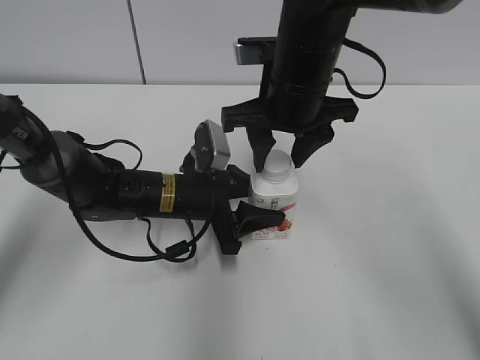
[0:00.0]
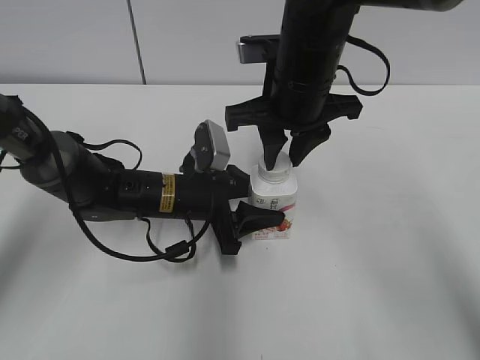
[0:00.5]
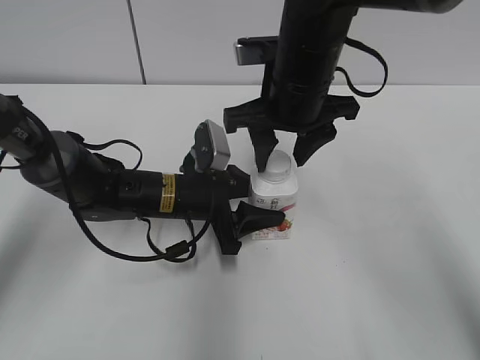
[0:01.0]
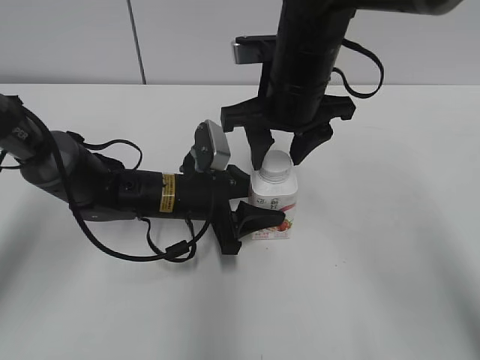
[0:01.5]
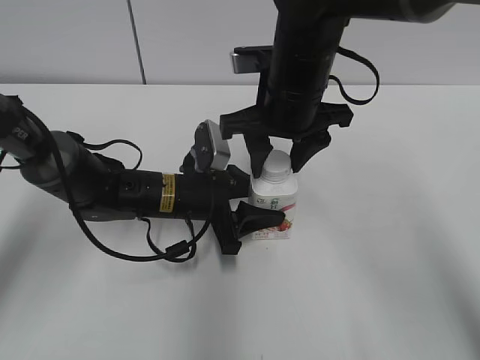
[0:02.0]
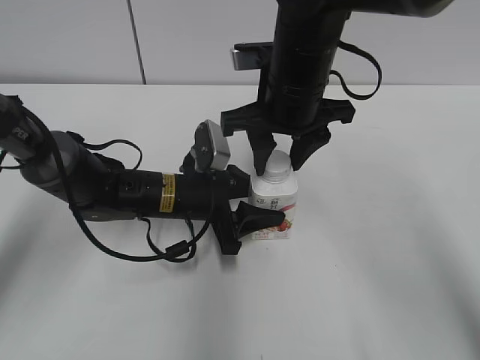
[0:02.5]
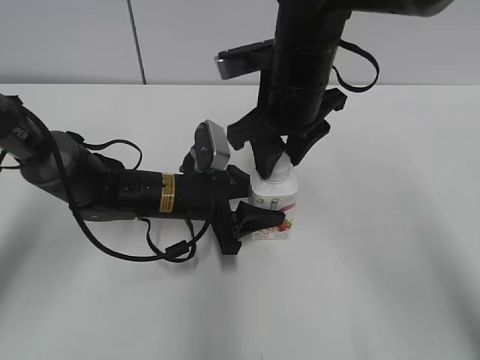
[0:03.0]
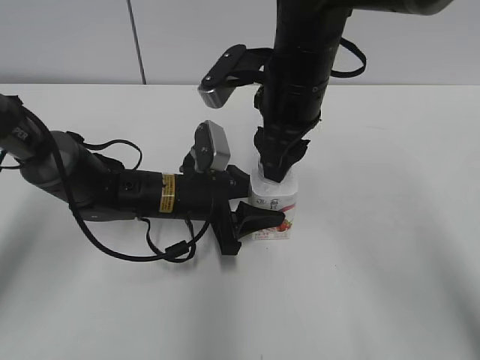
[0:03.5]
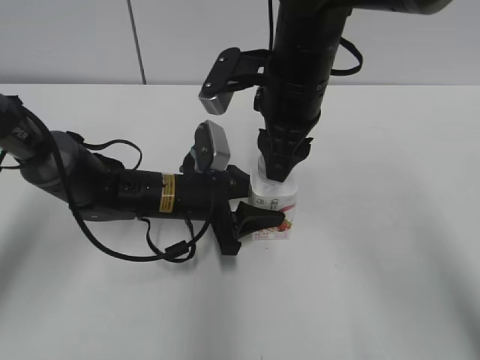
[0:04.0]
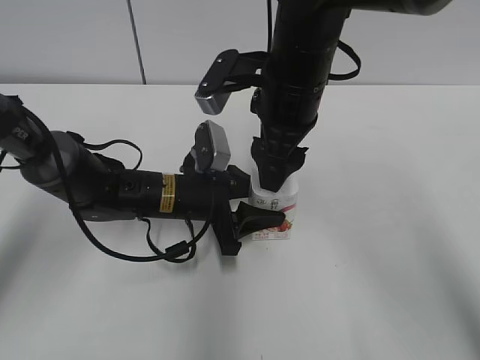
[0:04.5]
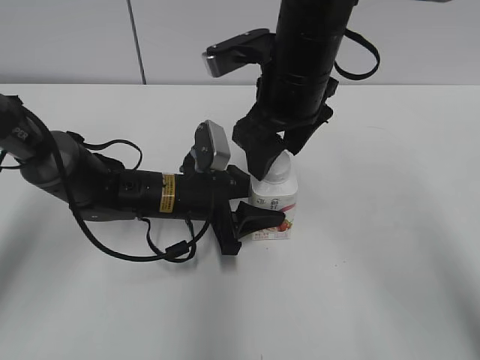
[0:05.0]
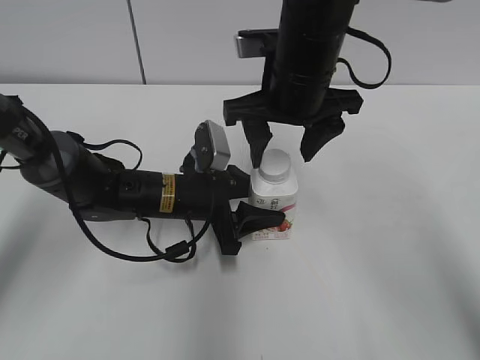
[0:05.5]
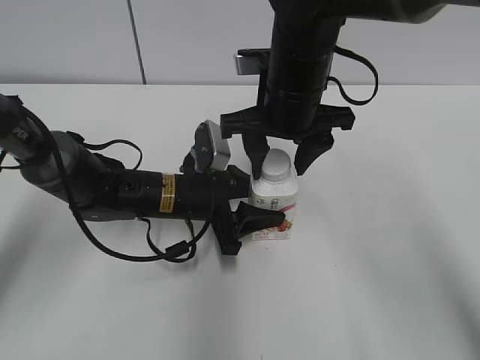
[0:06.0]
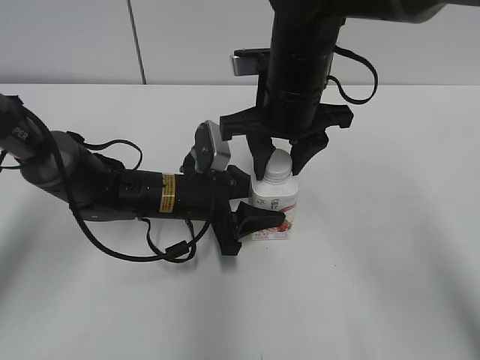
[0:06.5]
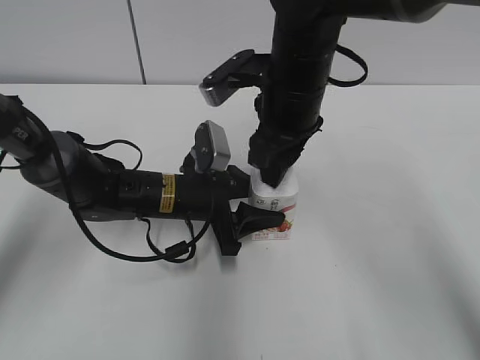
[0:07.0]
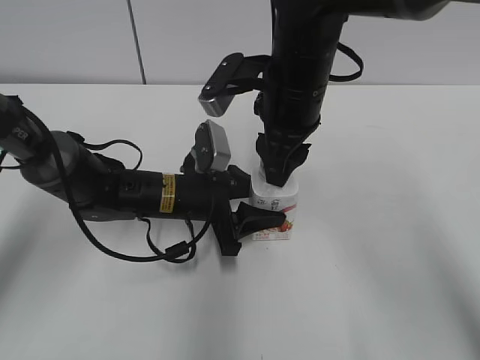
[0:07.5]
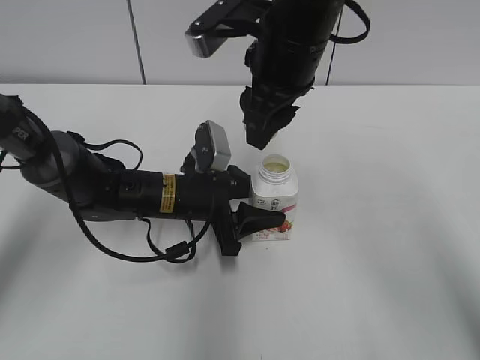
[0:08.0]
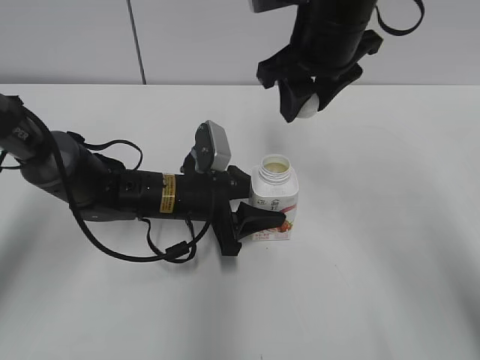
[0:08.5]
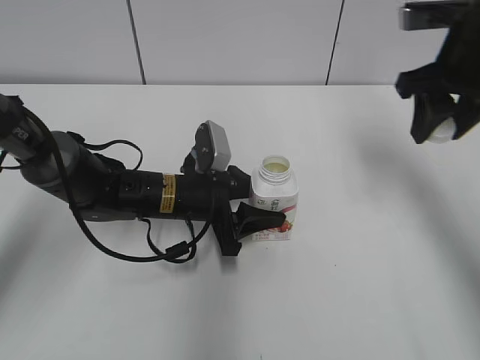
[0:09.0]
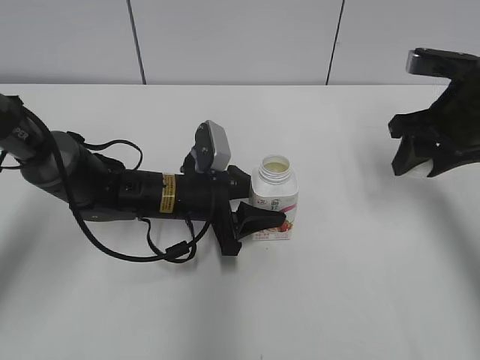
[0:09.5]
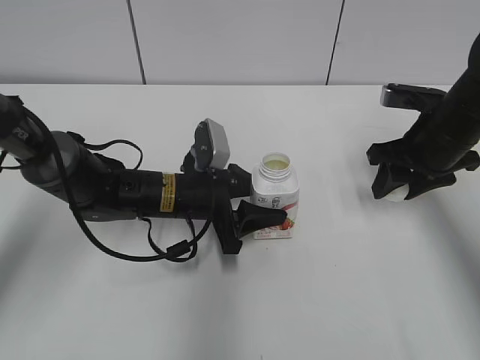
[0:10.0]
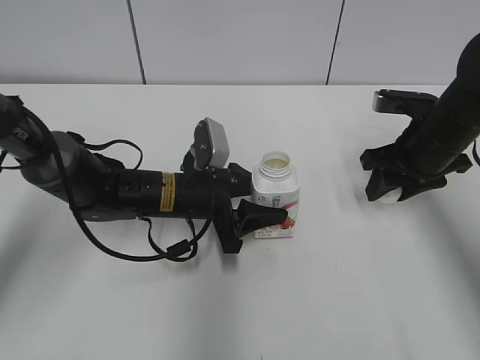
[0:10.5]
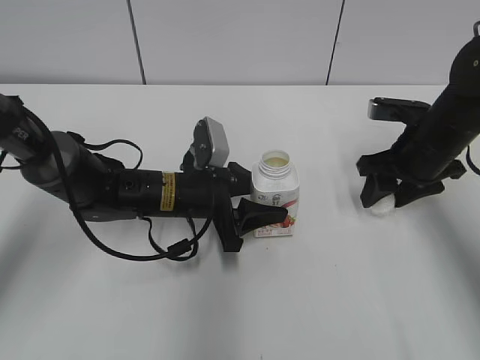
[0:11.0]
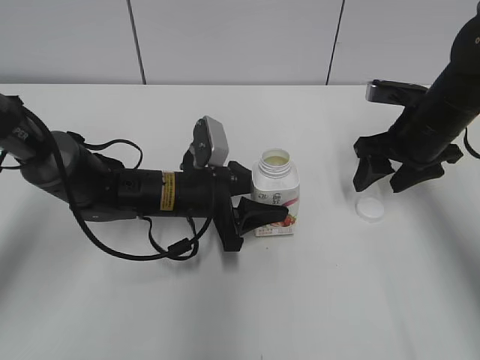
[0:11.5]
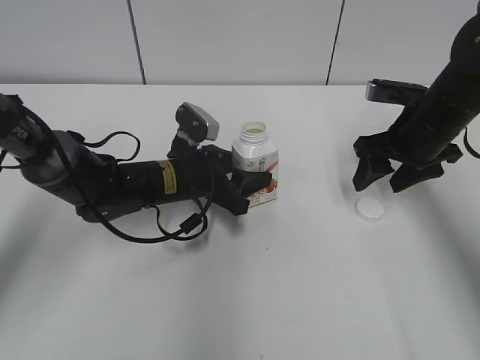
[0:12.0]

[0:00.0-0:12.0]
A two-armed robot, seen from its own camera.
Step, 0:00.0 to 0:07.5: Twist the bottle cap with the right hand.
Step, 0:08.0 to 0:11.0: Place the bottle cap on the right.
0:00.0 to 0:02.0: The right gripper closes, then opens again.
0:04.0 to 0:06.0: The right gripper opens up.
0:06.0 to 0:08.0: The right gripper ends up roughly 5 cm from where it was, and closes.
0:08.0 to 0:10.0: The right gripper moves to the right and downward, some 20 cm.
0:10.0 to 0:12.0: The right gripper opens.

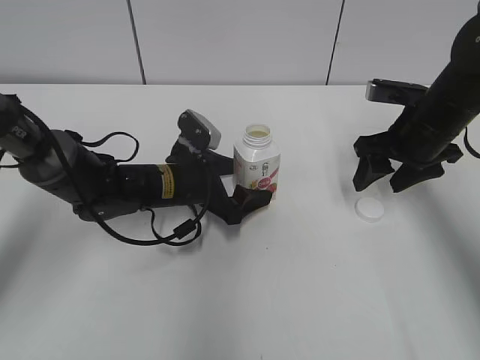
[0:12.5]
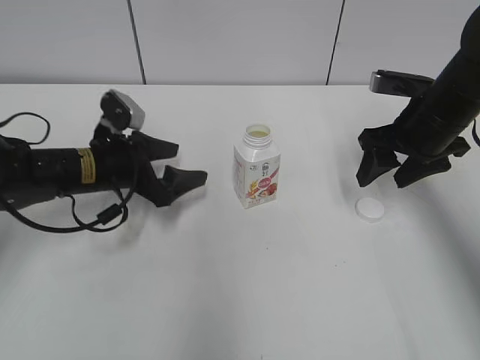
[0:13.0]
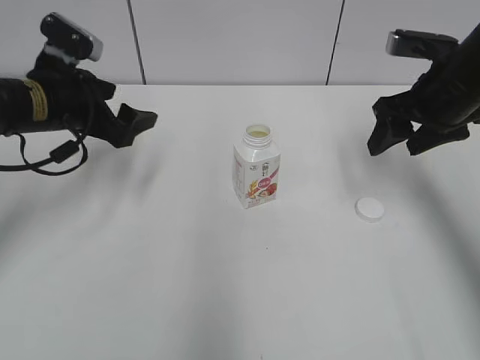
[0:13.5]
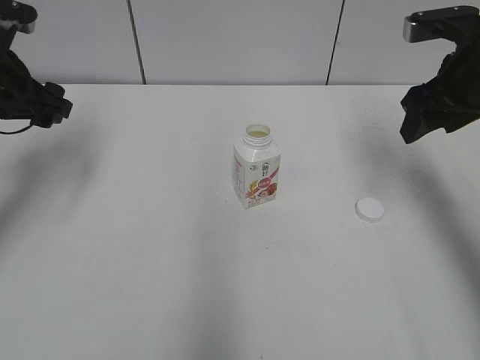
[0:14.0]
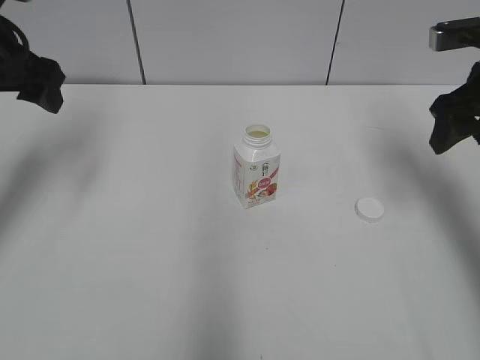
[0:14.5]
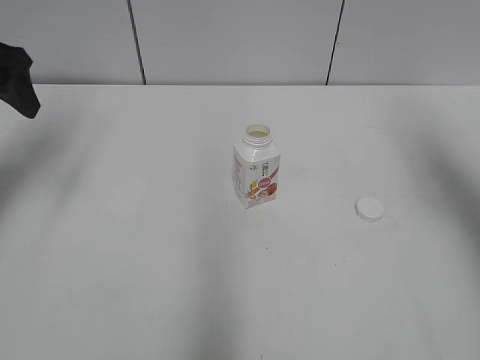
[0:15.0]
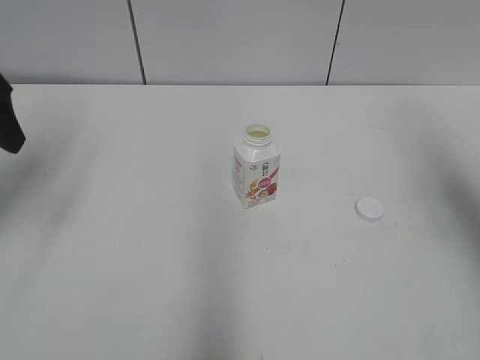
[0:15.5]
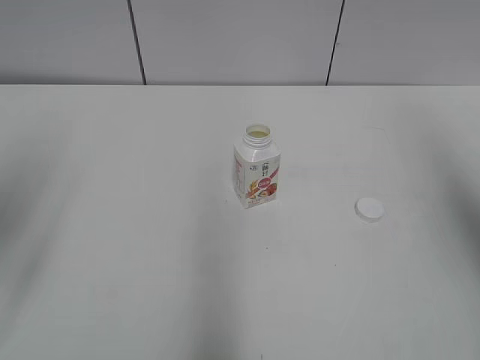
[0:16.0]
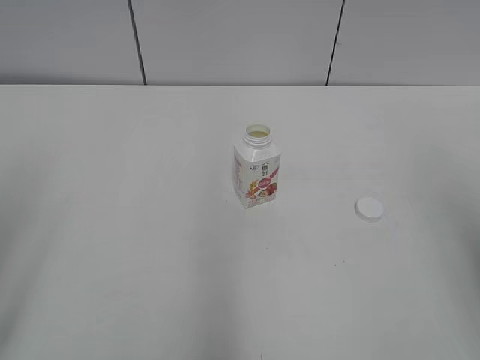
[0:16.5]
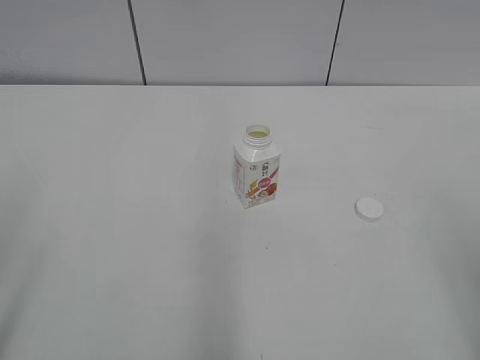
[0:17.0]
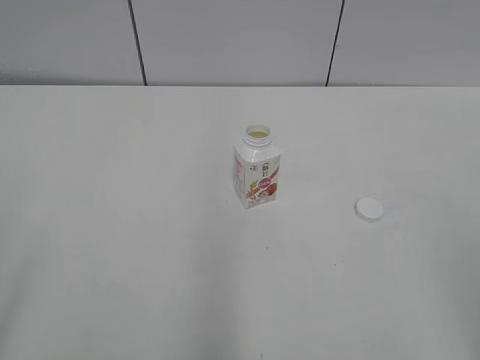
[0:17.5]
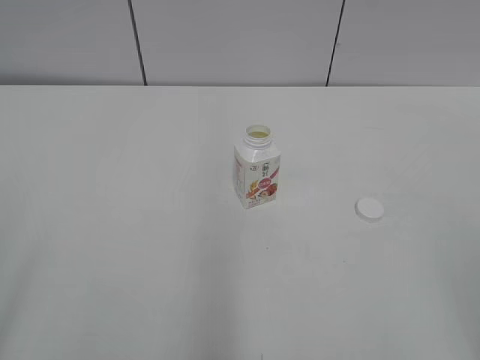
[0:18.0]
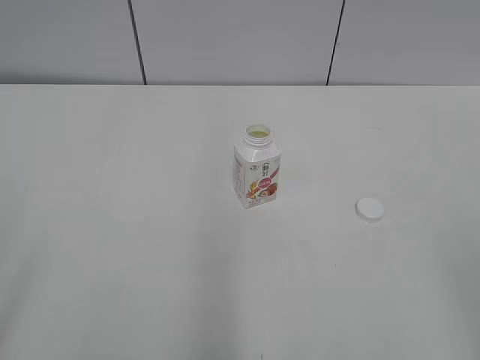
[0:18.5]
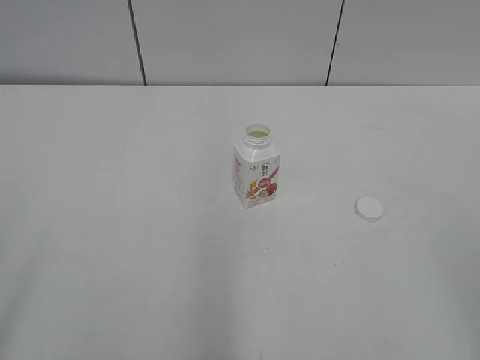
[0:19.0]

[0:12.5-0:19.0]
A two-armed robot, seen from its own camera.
0:12.5 to 0:14.5: The right gripper moves upward, roughly 10 cm; the left gripper travels upward and to the left by about 30 cm.
0:14.5 to 0:17.0: The grippers both shift backward by approximately 30 cm.

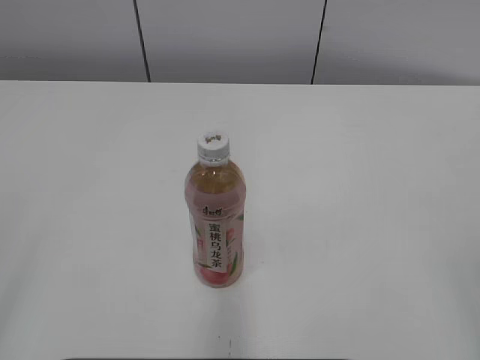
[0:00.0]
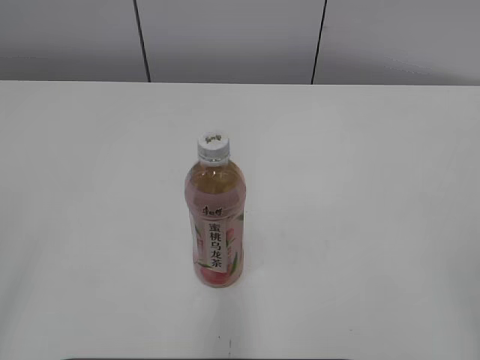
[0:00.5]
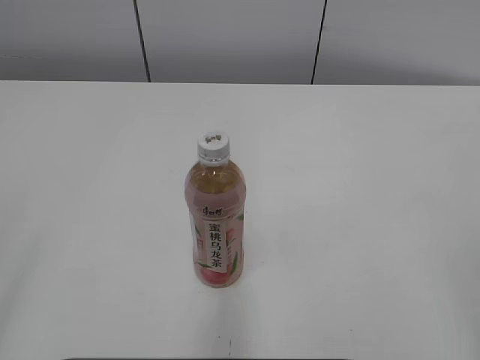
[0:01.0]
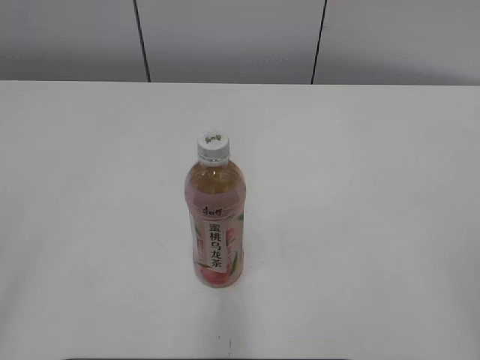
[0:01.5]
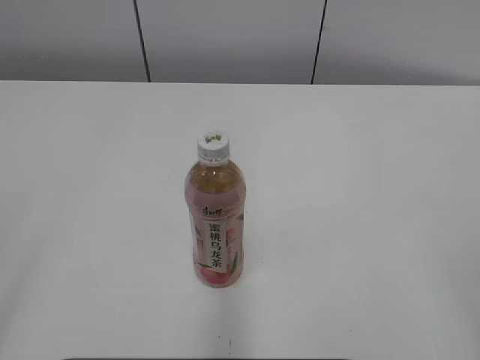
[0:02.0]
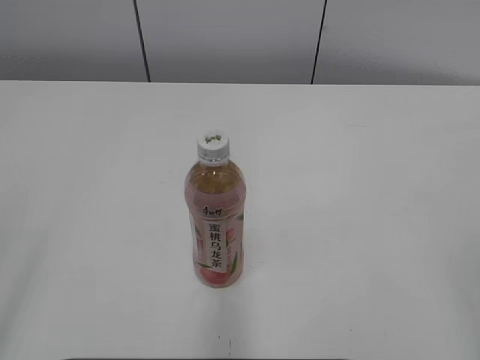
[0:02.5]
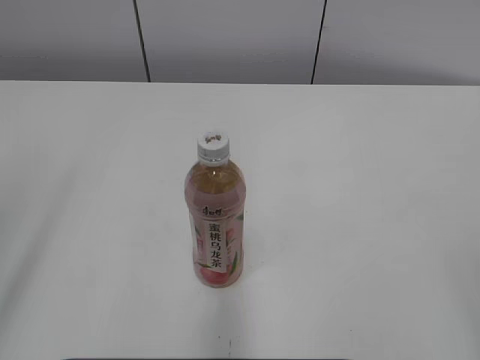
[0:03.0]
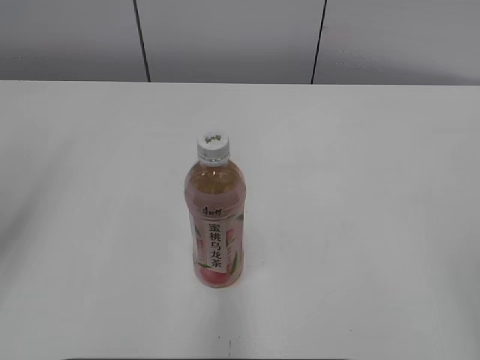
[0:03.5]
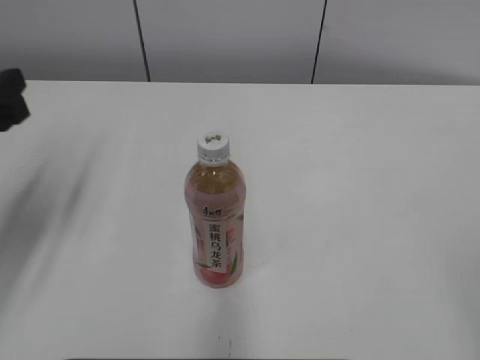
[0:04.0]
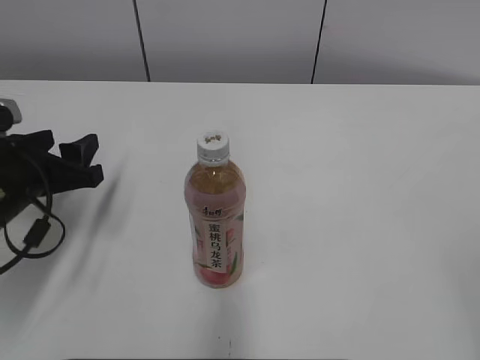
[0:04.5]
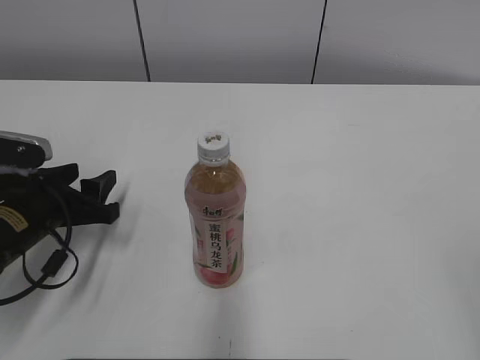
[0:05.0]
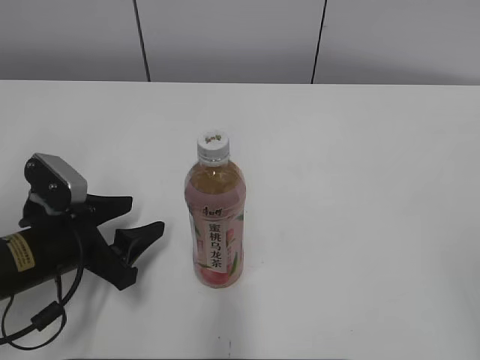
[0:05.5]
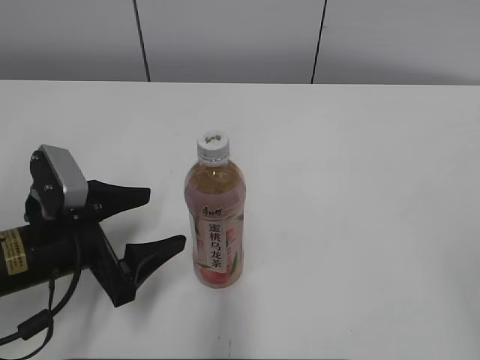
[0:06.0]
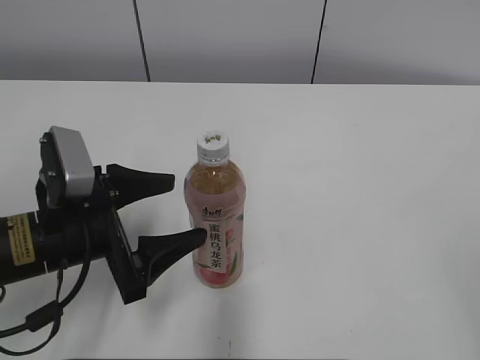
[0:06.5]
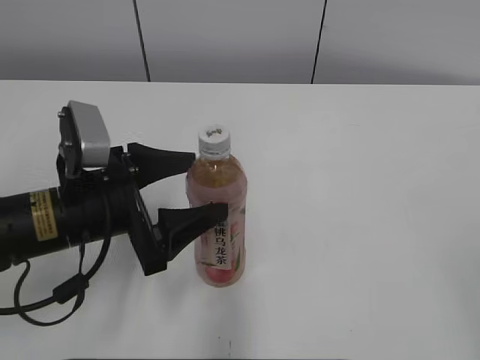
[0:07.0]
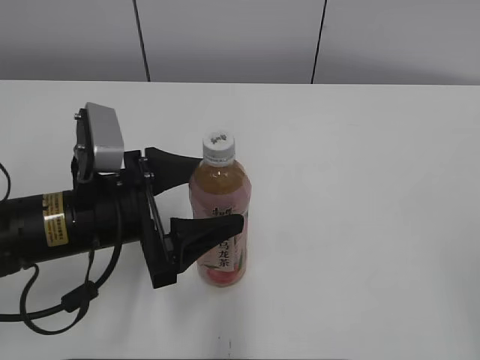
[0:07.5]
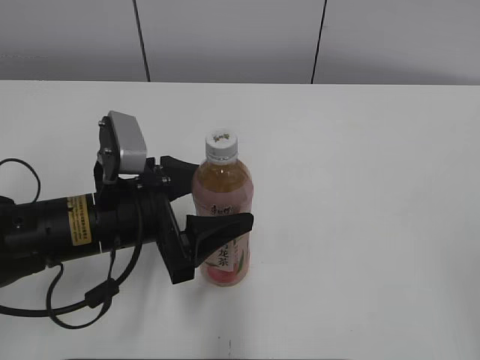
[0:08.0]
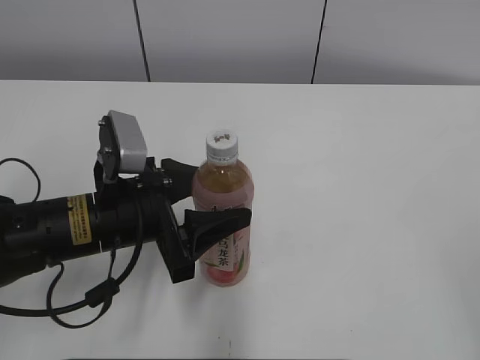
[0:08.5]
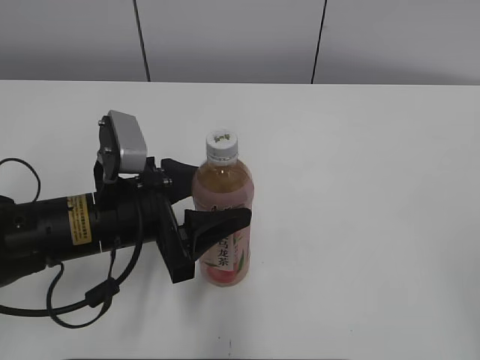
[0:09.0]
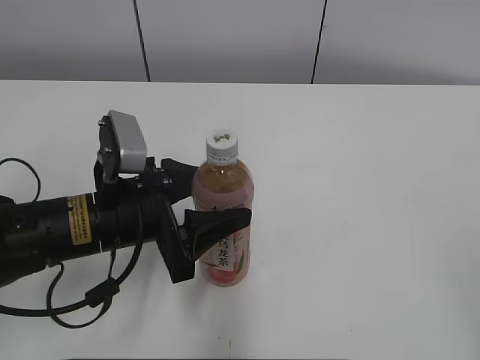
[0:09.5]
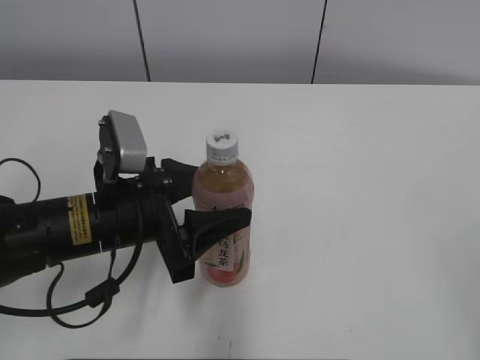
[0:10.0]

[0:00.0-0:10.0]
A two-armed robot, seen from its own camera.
0:02.0 to 0:04.0: The left gripper is displaced forward by approximately 25 cm.
0:04.0 to 0:06.0: The left gripper heads downward and to the right, covering about 15 cm, and opens its fingers.
0:06.0 to 0:08.0: The left gripper heads to the right, covering some 5 cm.
0:08.0 to 0:10.0: The left gripper closes up.
